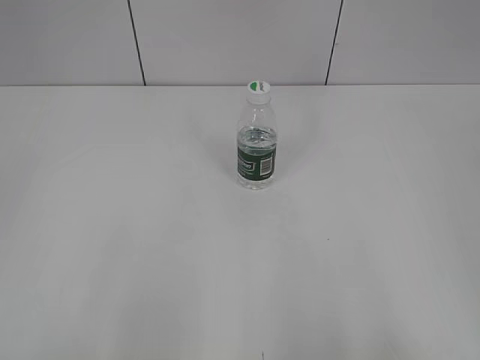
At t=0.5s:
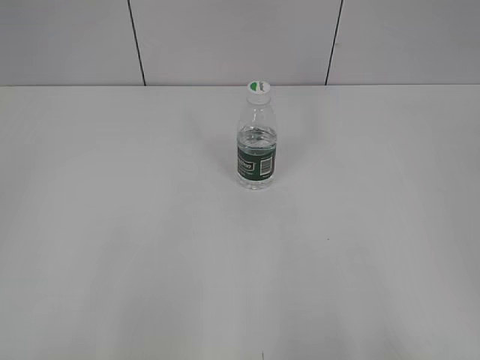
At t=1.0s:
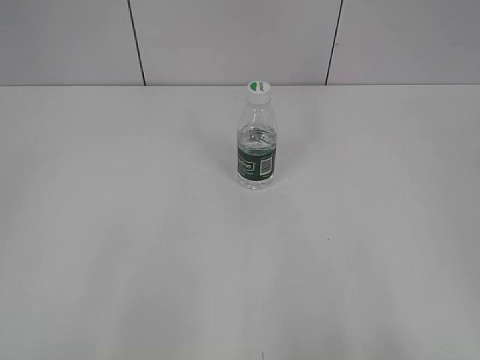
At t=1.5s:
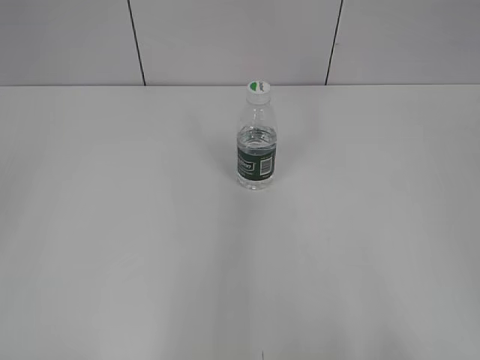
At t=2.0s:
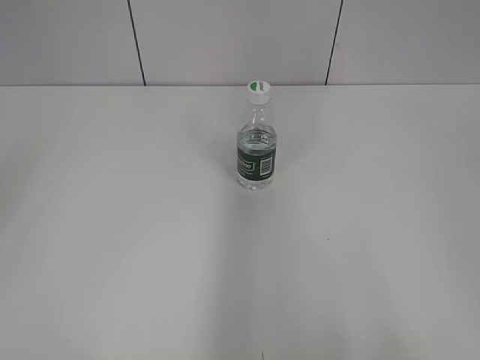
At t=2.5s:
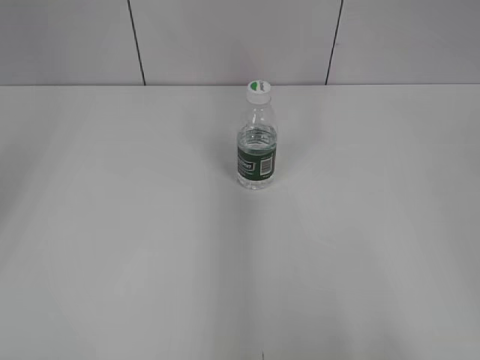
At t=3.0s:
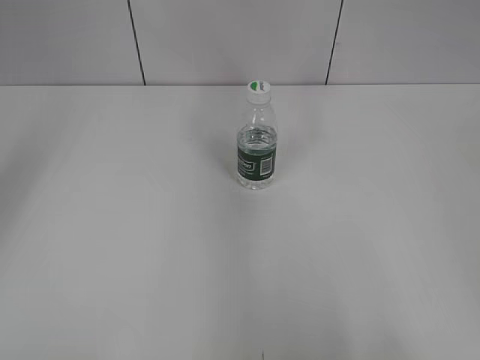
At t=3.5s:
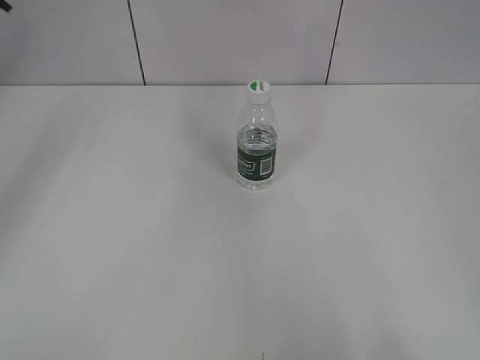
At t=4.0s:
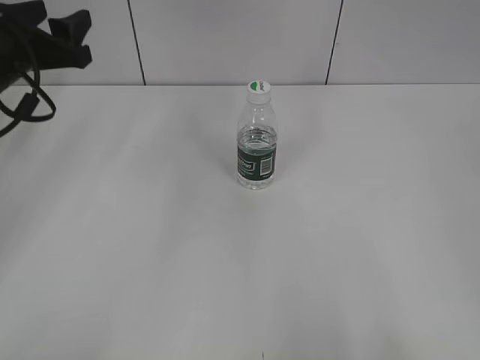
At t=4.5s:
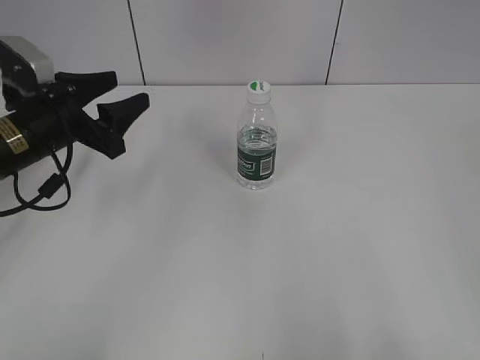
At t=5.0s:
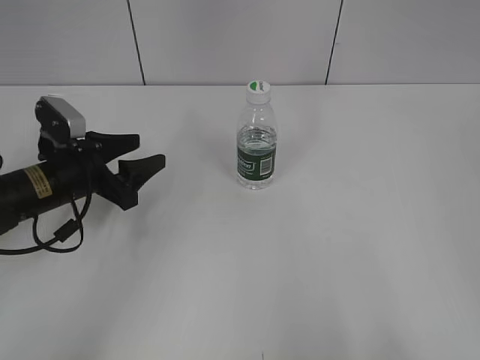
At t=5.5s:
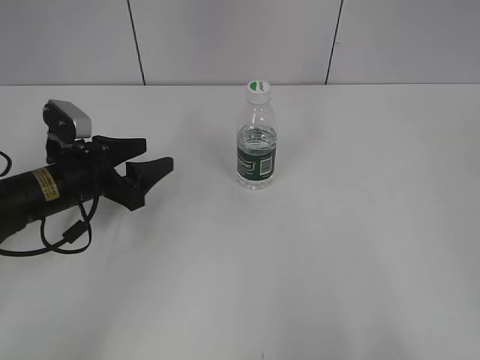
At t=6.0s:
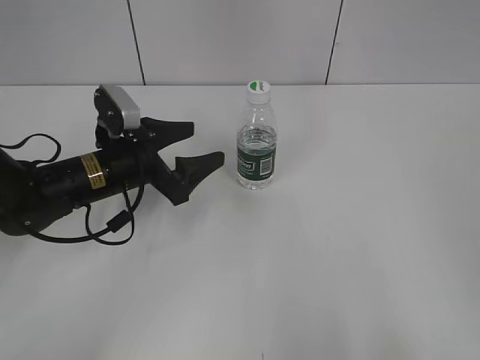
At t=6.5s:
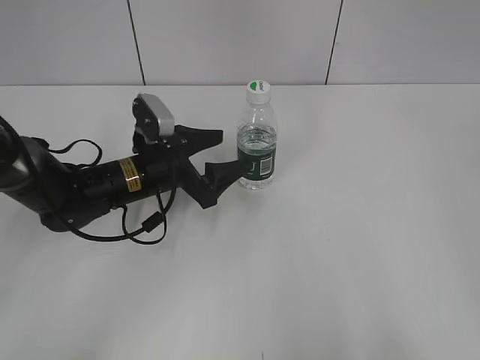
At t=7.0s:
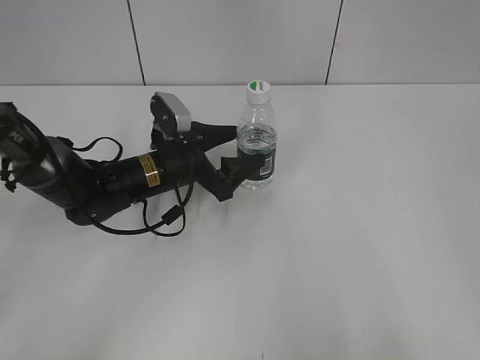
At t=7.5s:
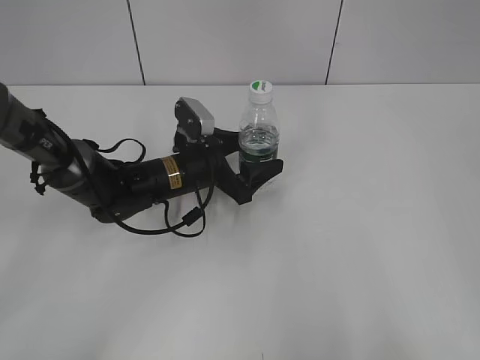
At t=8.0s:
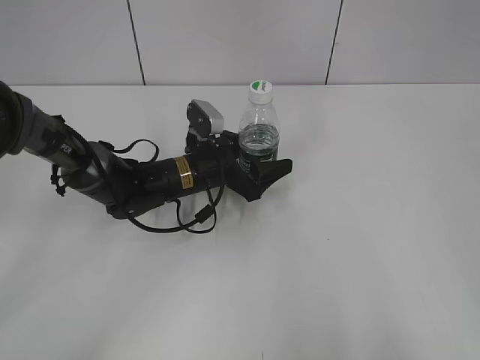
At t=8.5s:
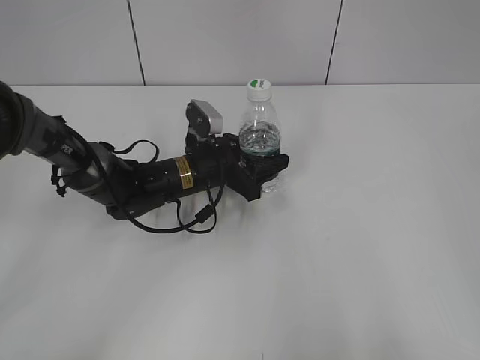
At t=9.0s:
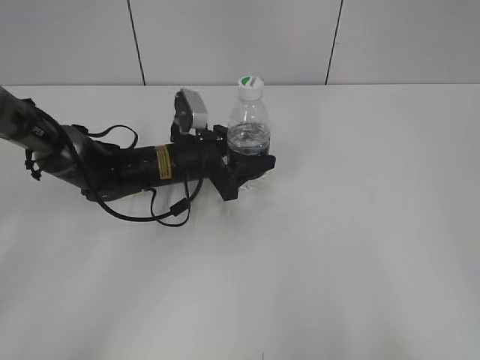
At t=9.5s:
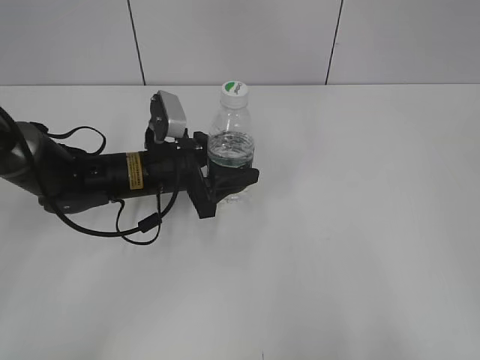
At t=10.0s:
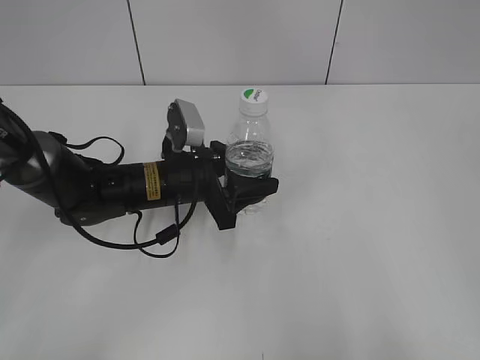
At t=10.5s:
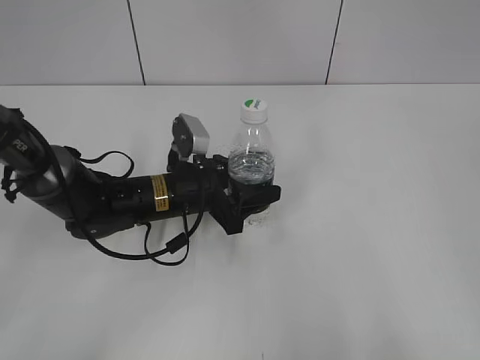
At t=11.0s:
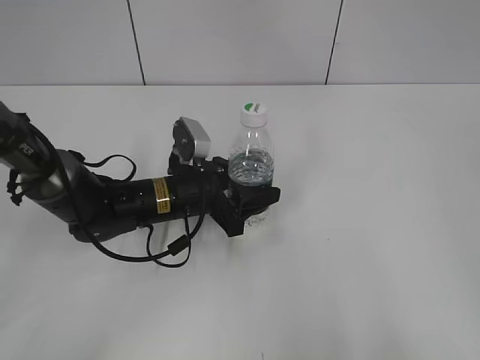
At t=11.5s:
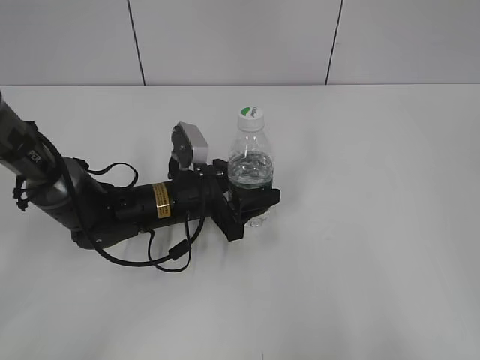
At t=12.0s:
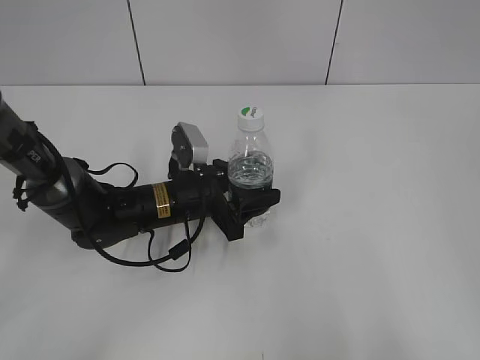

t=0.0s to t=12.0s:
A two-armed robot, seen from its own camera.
Step, t=0.0s to t=8.5s: Grasp the bottle and move it to the center of the table with the left gripper.
t=2.0s to t=4.0s: The left gripper travels forward and downward by about 35 cm.
t=4.0s to t=6.0s: The left gripper shifts roughly 15 cm downward and to the right, and opens up.
t=6.0s to t=8.0s: The left gripper shifts some 10 cm to the right, forward and downward.
t=8.0s to t=10.0s: The left gripper is displaced backward by some 5 cm, and closes its fingers.
t=10.0s to t=12.0s: The grippers make only small movements.

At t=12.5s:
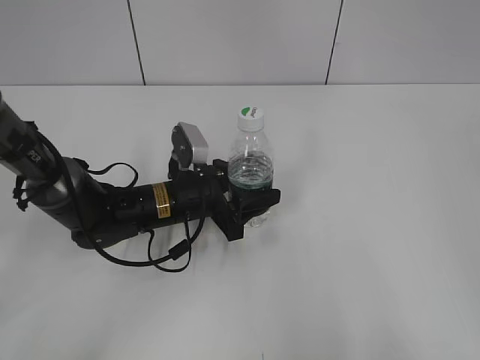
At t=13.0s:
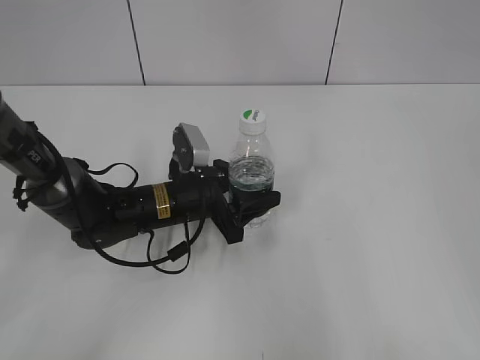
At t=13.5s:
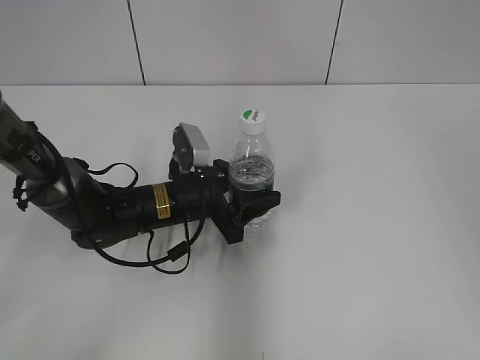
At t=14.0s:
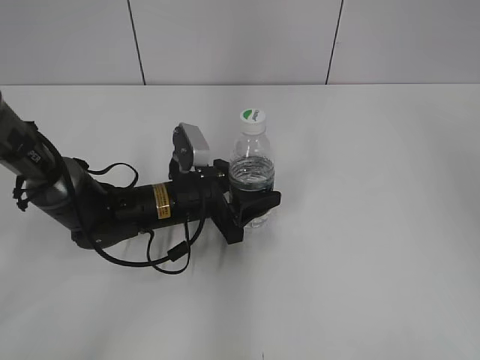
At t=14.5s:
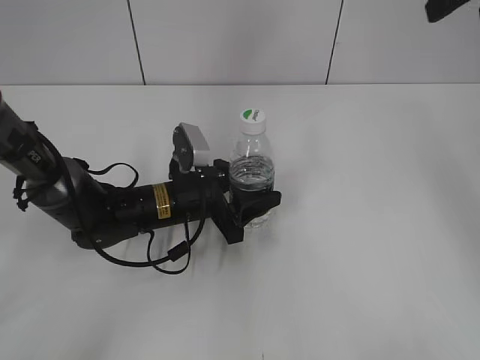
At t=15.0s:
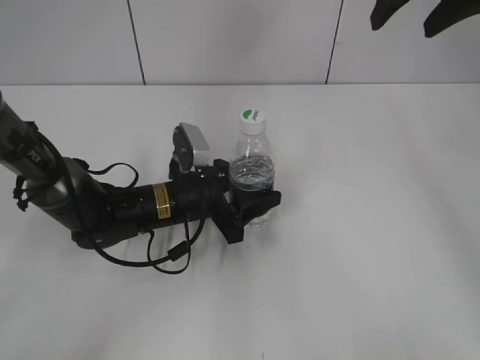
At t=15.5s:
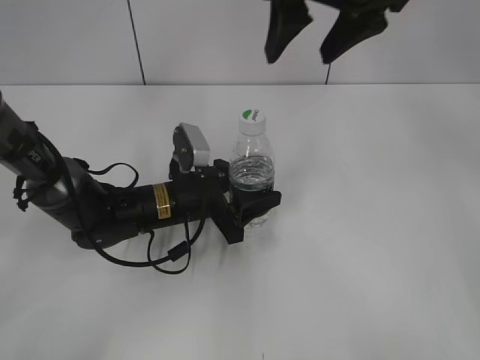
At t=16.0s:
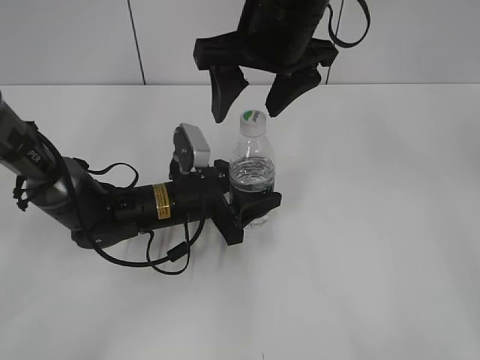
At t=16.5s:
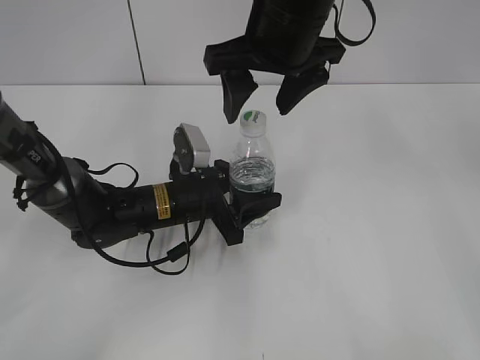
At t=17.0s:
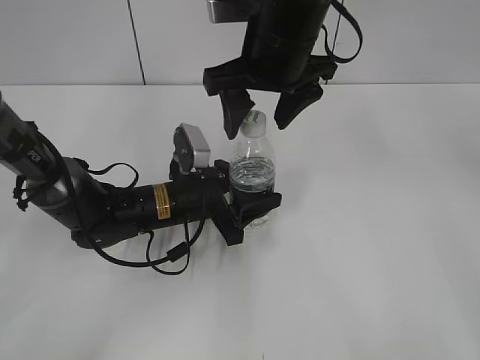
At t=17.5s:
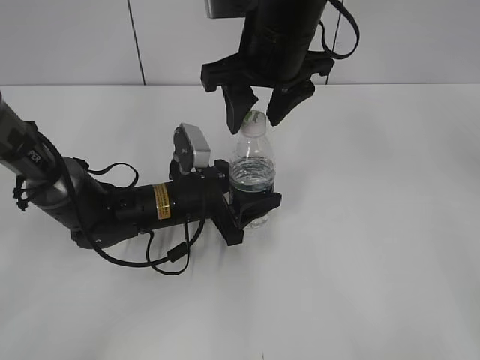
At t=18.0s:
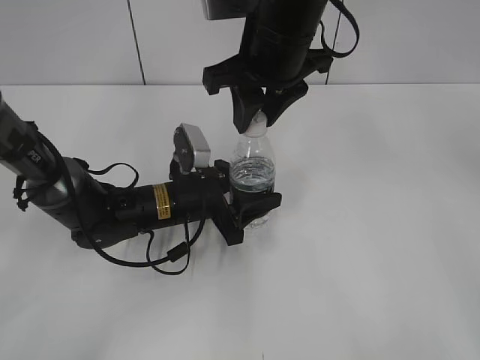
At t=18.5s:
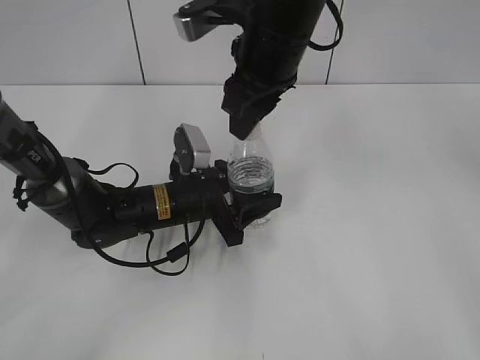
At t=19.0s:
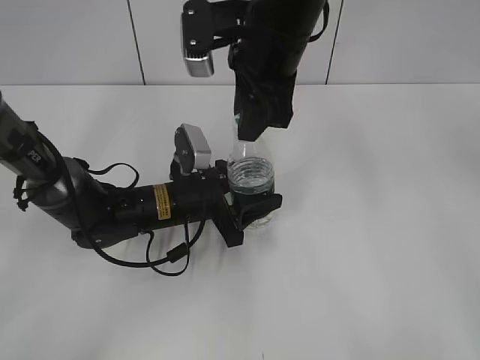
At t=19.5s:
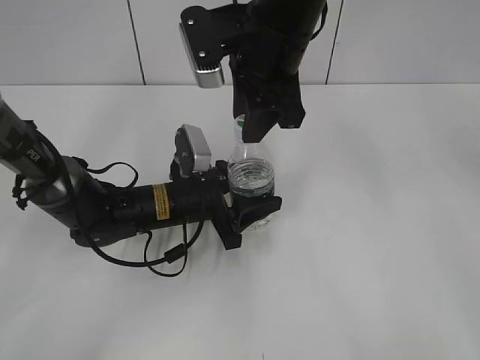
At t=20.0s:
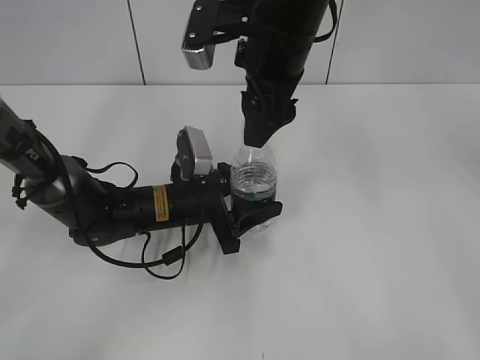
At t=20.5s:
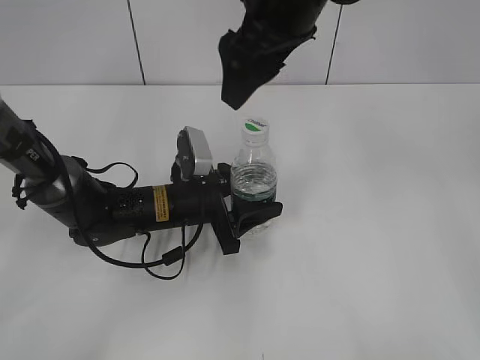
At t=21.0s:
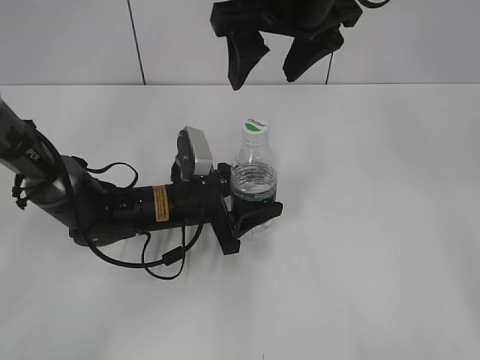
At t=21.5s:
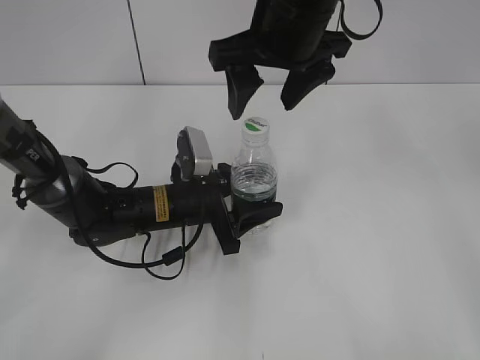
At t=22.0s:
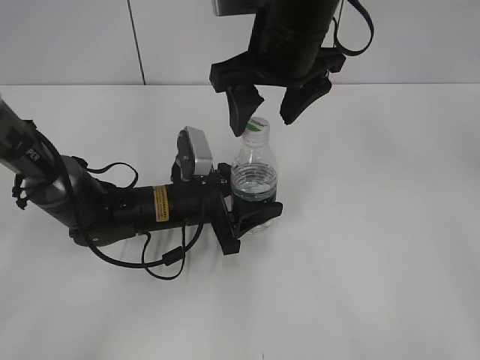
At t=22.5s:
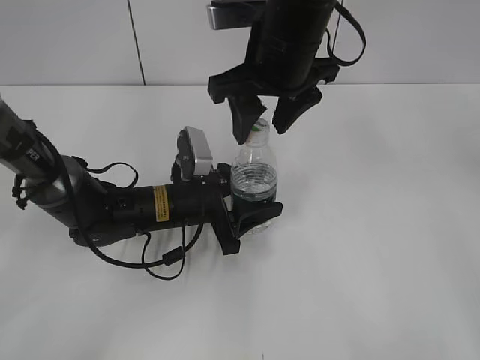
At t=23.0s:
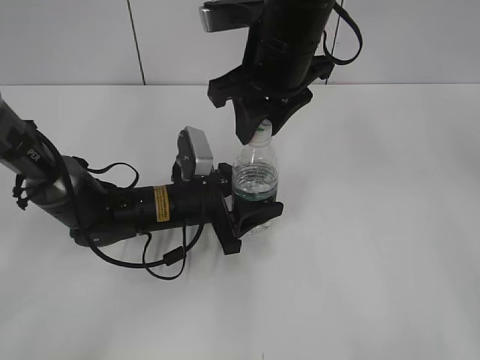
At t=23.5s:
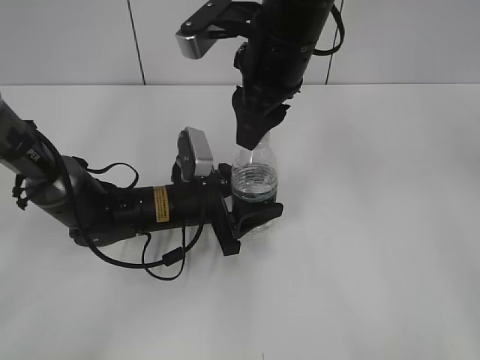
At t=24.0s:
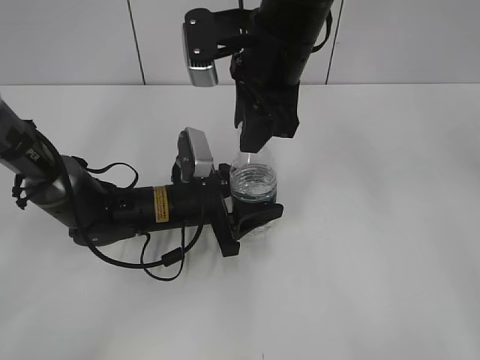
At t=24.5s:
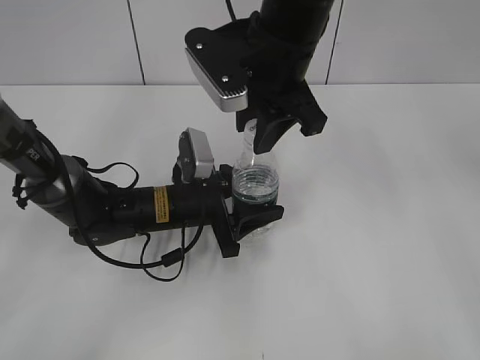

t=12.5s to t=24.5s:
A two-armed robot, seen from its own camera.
t=12.5s to t=14.5s: The right gripper goes some 35 cm forward, and opens up.
t=14.5s to t=16.5s: The right gripper heads to the left and downward, covering approximately 25 cm.
t=16.5s to t=18.5s: The right gripper closes.
t=18.5s to t=20.5s: The right gripper moves upward, some 5 cm, and opens.
t=20.5s to t=22.5s: The right gripper heads downward, covering about 5 cm, and closes.
t=22.5s to t=24.5s: The right gripper closes up.

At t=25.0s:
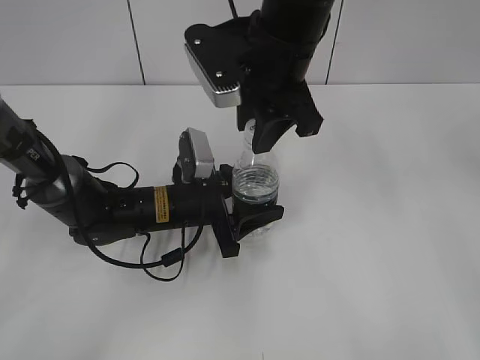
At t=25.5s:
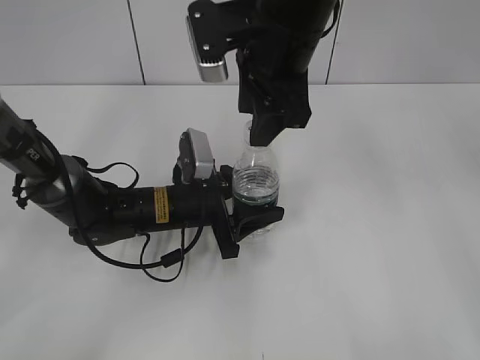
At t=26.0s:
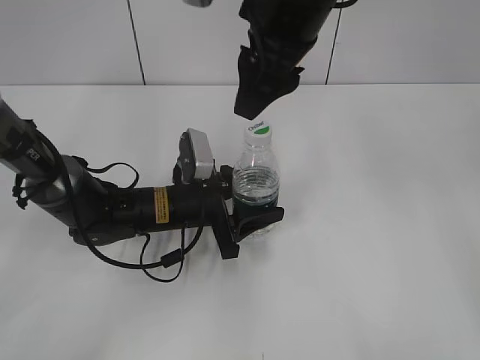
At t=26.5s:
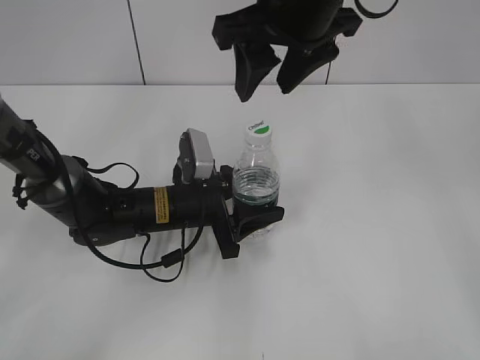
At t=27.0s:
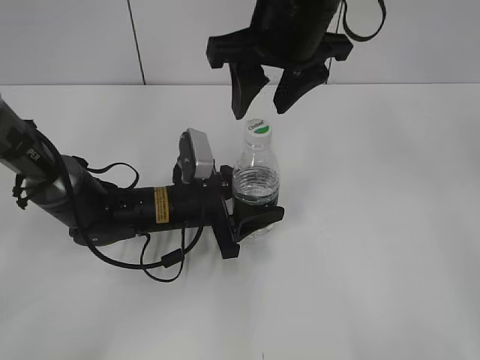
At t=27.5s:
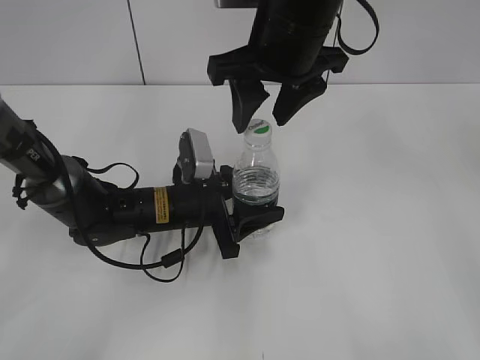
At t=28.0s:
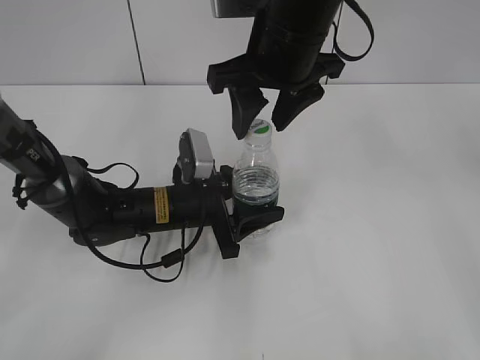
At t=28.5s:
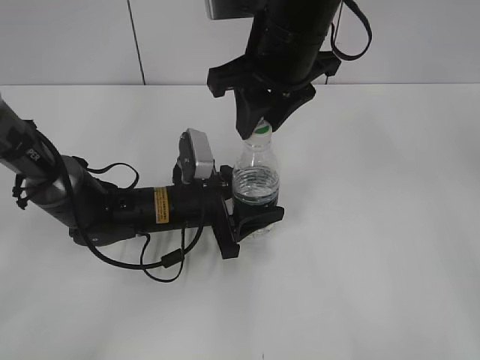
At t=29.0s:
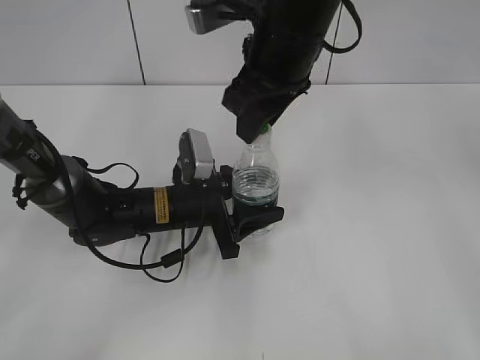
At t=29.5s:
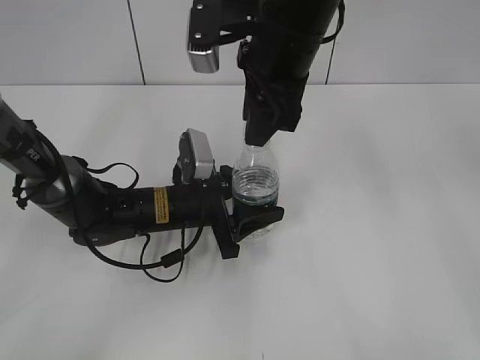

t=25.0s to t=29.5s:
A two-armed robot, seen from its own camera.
t=25.0s to t=27.0s: The right gripper opens its fingers.
t=27.0s to t=29.5s: The right gripper closes.
